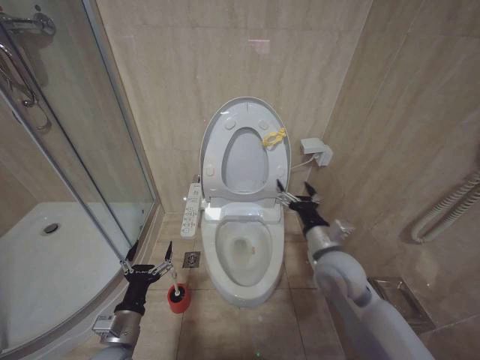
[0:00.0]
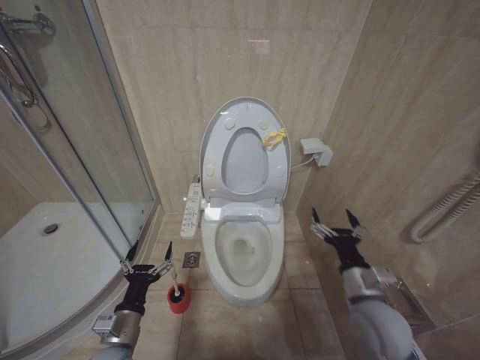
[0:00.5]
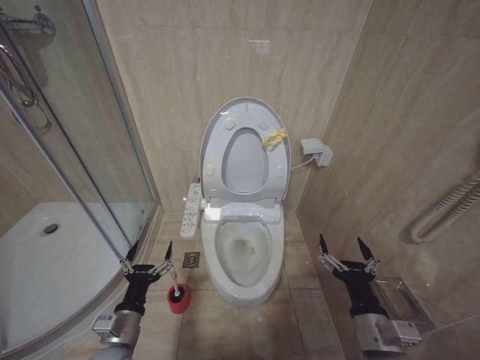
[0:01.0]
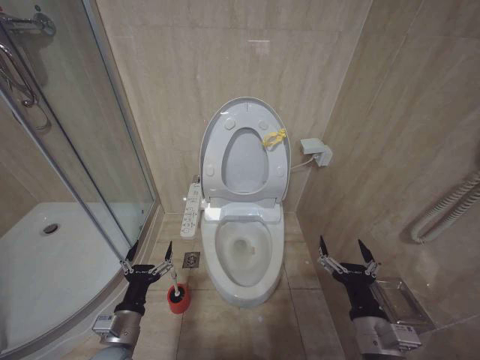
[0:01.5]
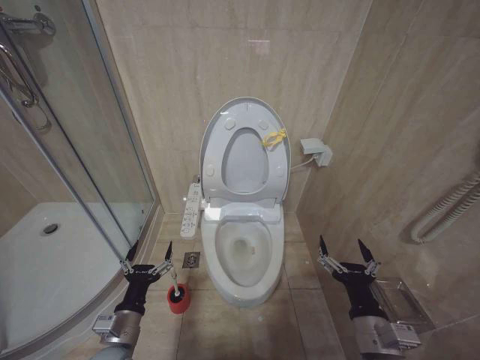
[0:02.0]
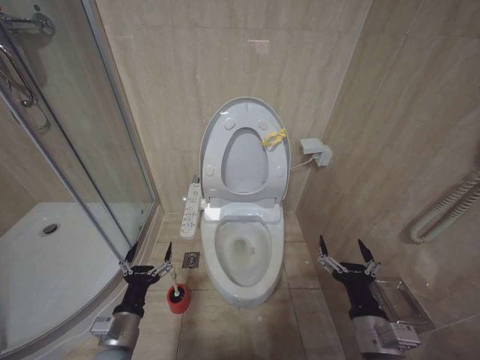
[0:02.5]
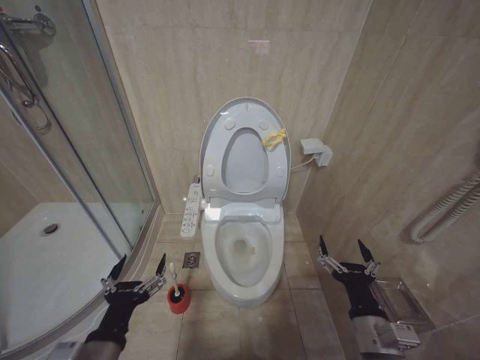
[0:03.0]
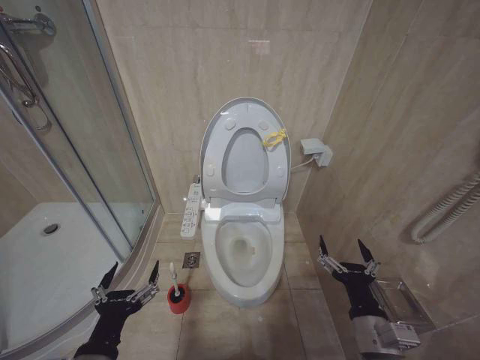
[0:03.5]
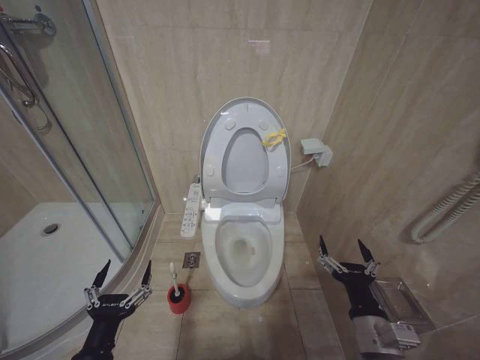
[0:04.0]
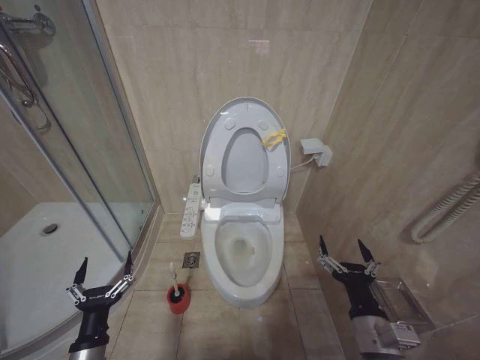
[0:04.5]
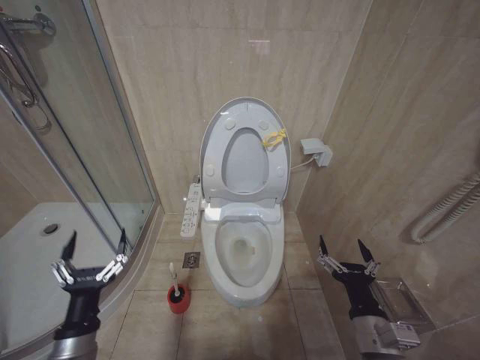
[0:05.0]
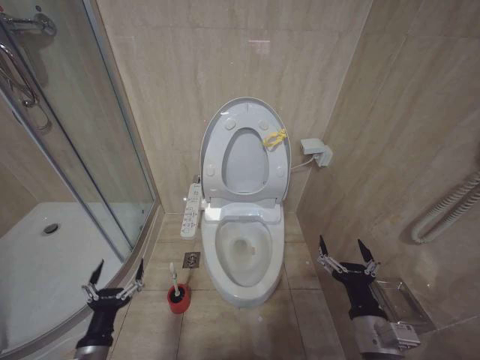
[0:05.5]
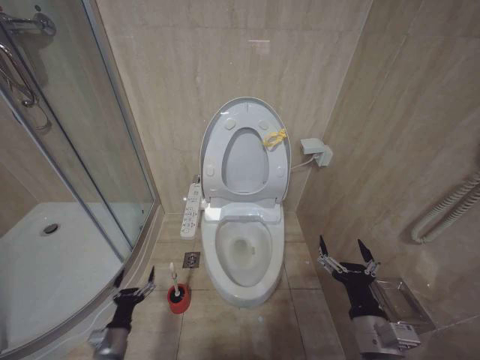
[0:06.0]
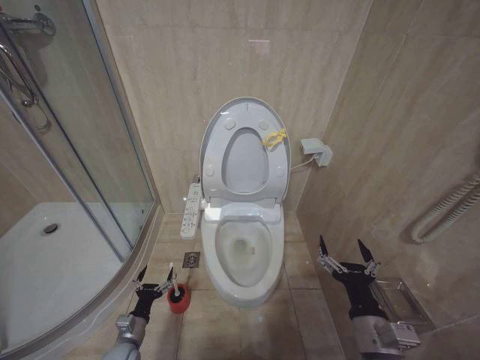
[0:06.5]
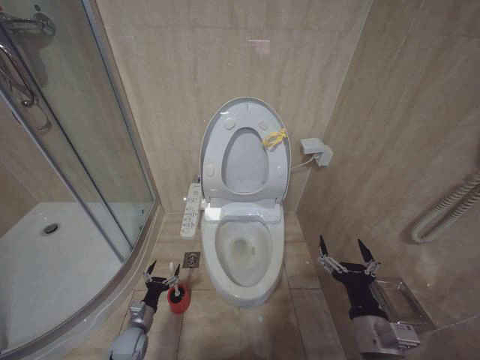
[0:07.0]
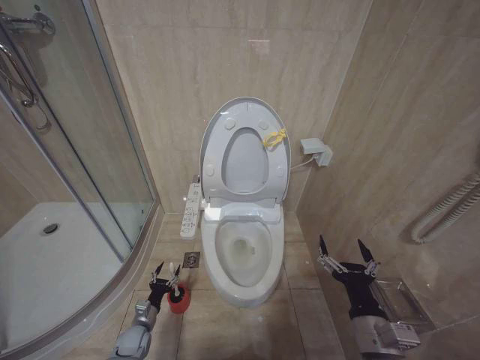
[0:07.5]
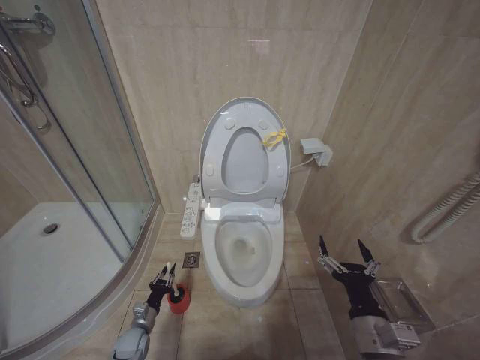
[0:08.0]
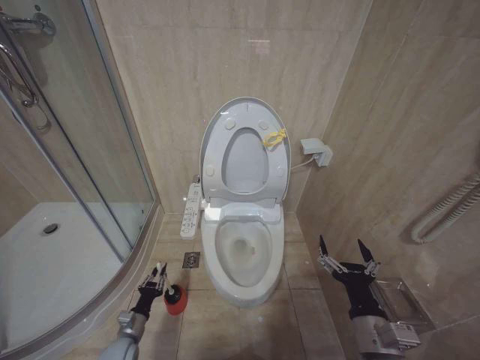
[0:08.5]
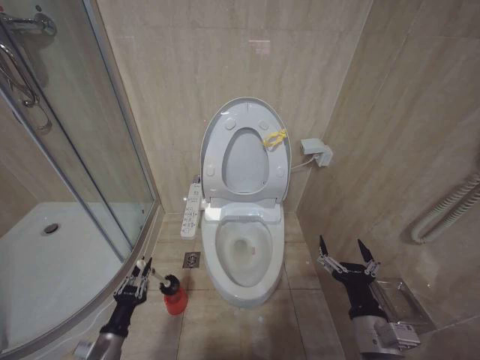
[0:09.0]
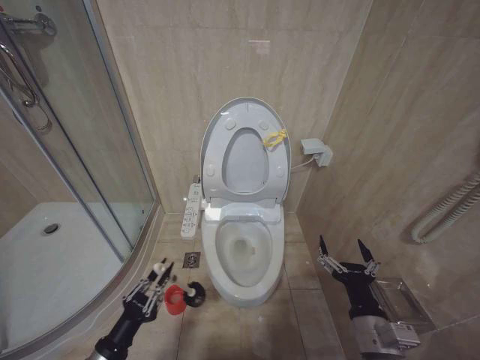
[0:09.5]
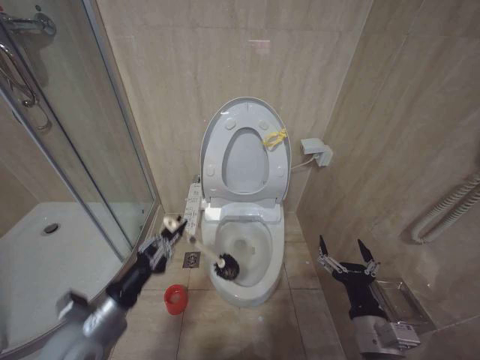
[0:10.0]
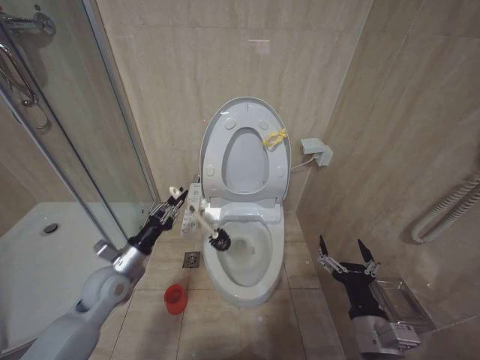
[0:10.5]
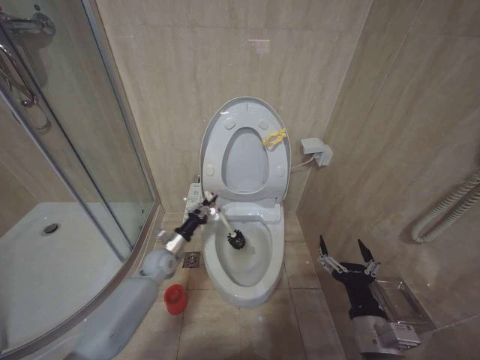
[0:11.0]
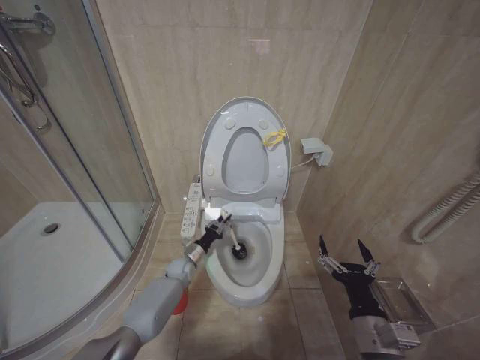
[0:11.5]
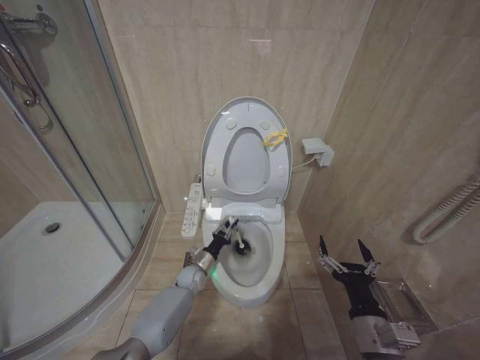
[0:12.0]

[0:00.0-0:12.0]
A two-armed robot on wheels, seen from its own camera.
Task of the whole recording: Open the toilet lid, clean the toilet bowl with a toilet brush, close the toilet lid, and flush.
0:00.0 to 0:02.0: The right gripper travels backward and downward by about 20 cm.
0:02.0 to 0:04.0: The left gripper shifts some 10 cm backward and upward.
0:04.0 to 0:06.0: The left gripper heads downward and forward, covering roughly 20 cm.
0:06.0 to 0:08.0: The left gripper goes approximately 15 cm forward and downward, and closes up.
0:08.0 to 0:10.0: The left gripper goes some 30 cm upward.
0:10.0 to 0:12.0: The left gripper heads forward, downward and to the right, covering roughly 40 cm.

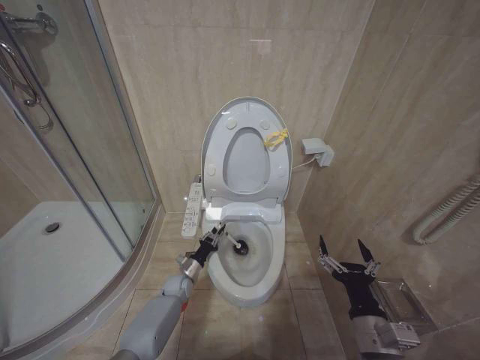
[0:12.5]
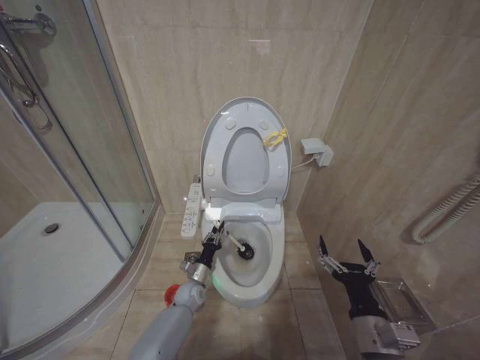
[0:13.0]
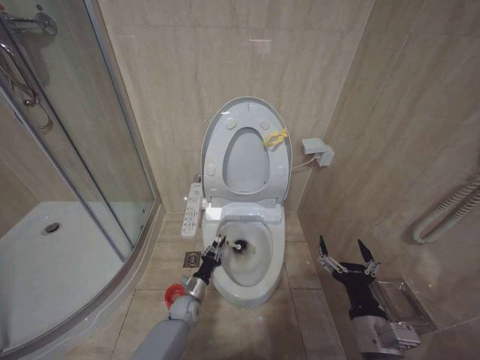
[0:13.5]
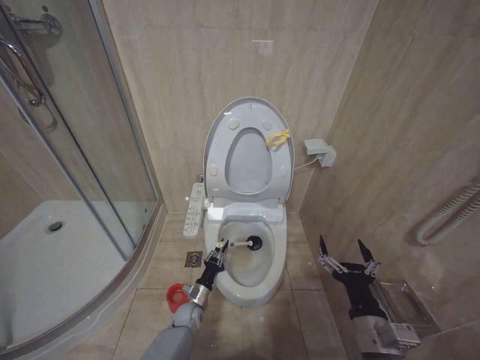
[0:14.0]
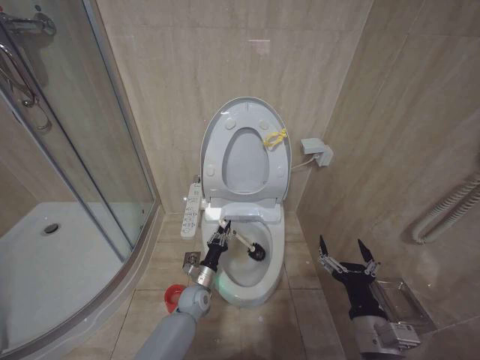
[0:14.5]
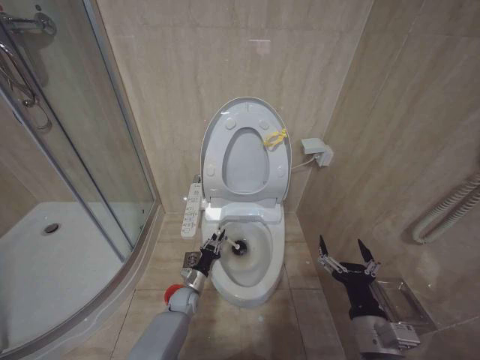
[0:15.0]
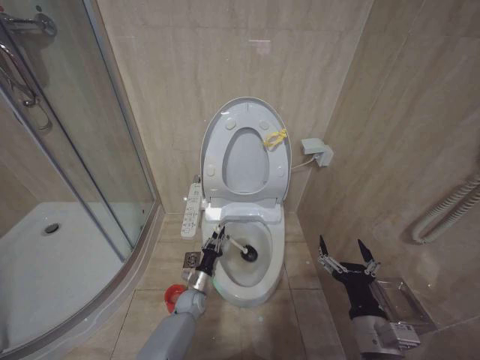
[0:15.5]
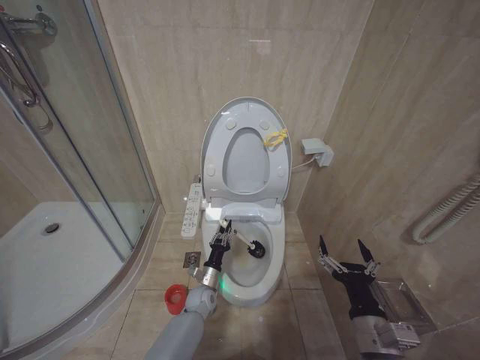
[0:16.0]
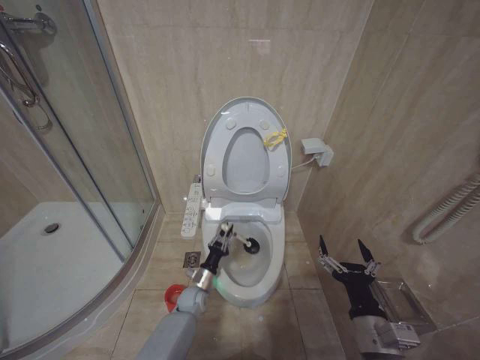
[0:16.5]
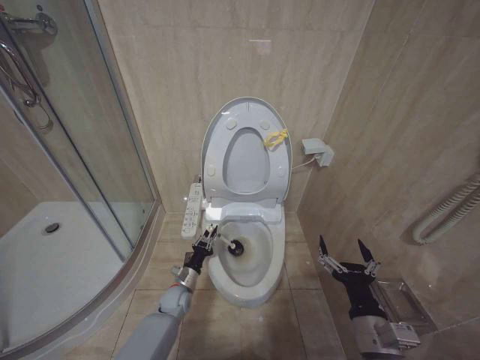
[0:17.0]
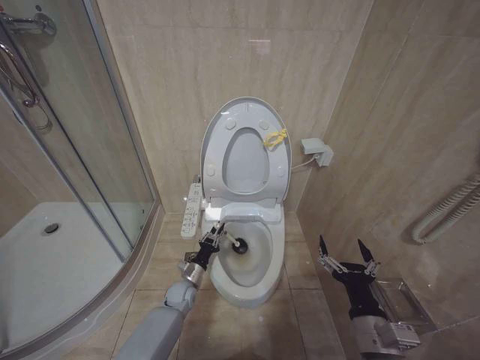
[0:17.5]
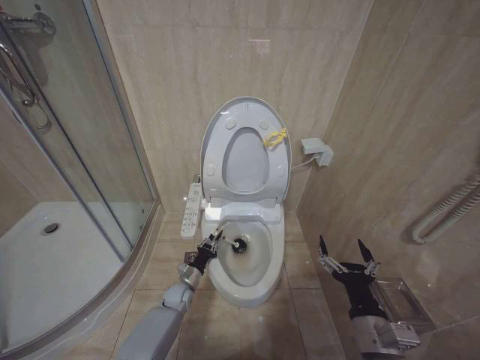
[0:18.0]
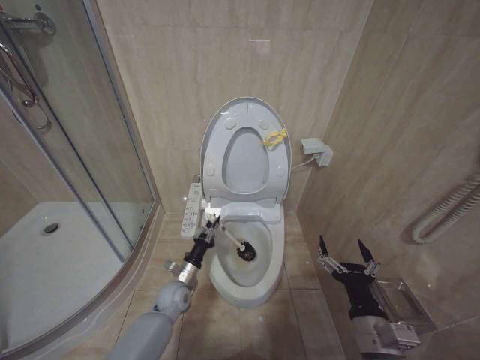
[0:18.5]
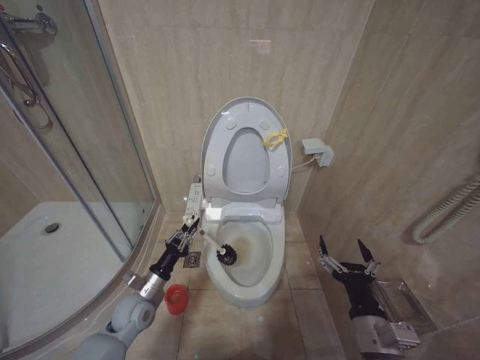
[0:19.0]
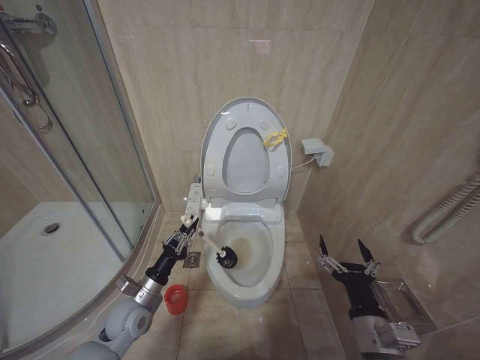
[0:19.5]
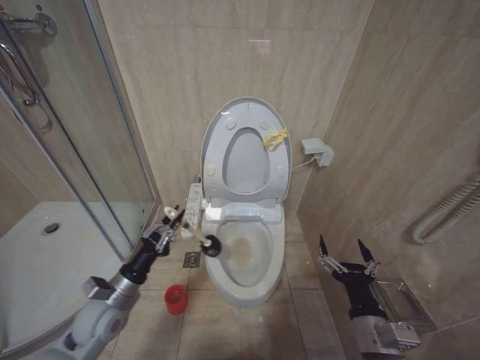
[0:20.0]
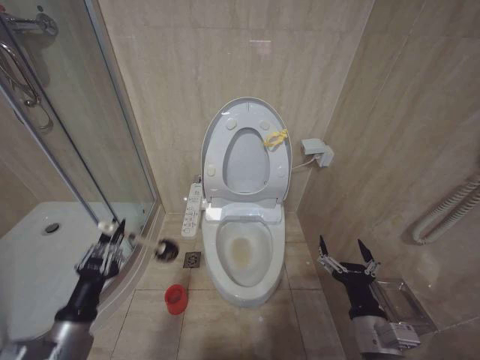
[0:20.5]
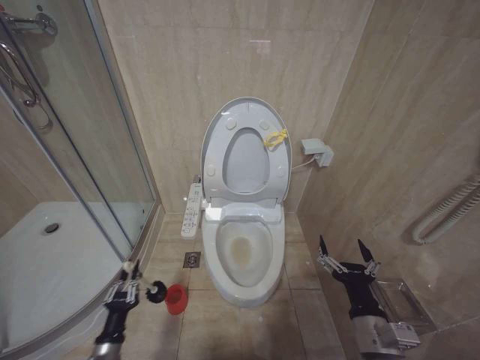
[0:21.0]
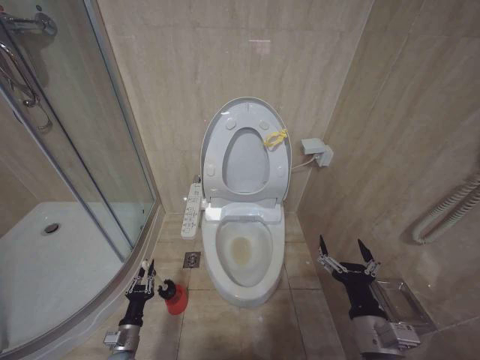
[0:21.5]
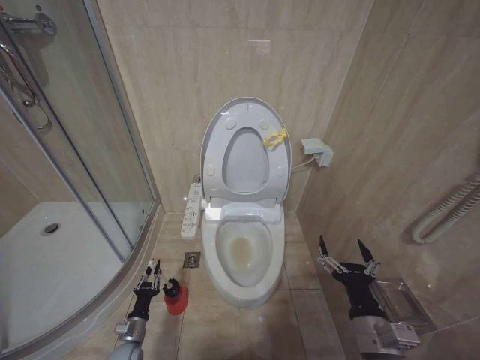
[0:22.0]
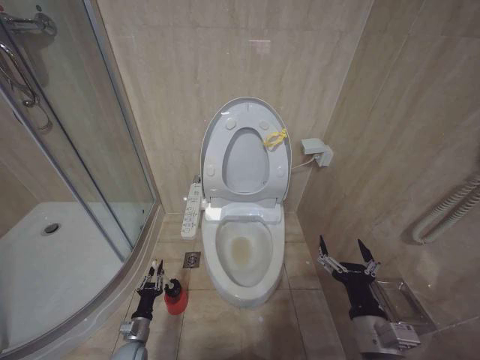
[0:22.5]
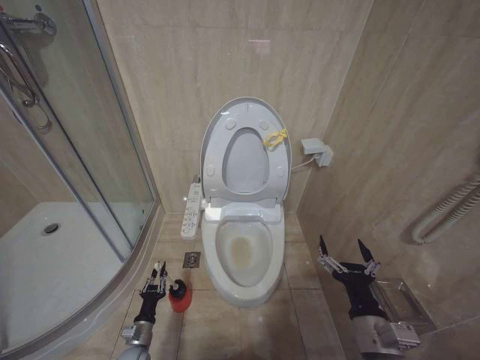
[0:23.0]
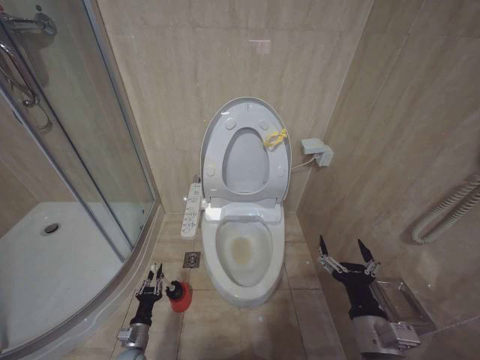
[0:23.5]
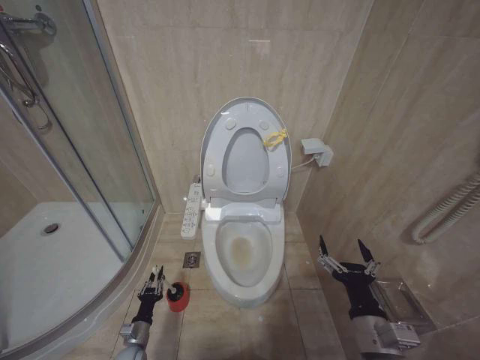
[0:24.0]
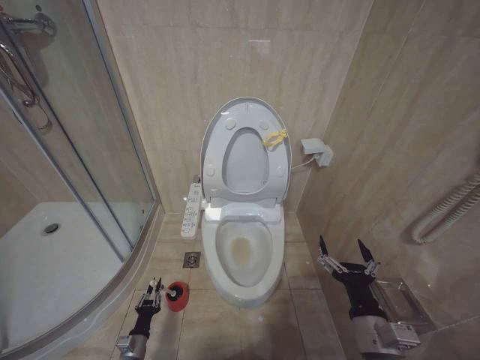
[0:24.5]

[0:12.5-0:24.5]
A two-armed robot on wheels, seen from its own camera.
Task of the whole recording: Open the toilet lid, clean the toilet bowl with a toilet brush, close the toilet lid, and flush.
0:12.5 to 0:14.5: The left gripper shifts roughly 10 cm backward and to the right.
0:16.5 to 0:18.5: The left gripper goes some 5 cm upward.
0:18.5 to 0:20.5: The left gripper goes some 35 cm upward, backward and to the left.
0:20.5 to 0:22.5: The left gripper shifts about 30 cm downward.
0:22.5 to 0:24.5: The grippers stay close to where they were, moving slightly.

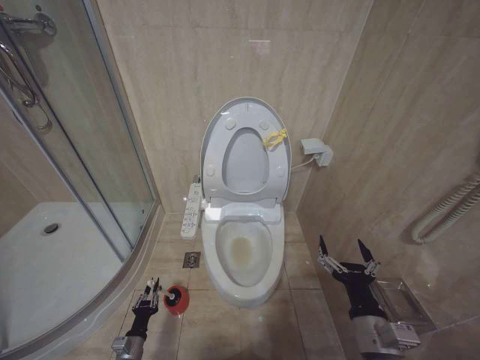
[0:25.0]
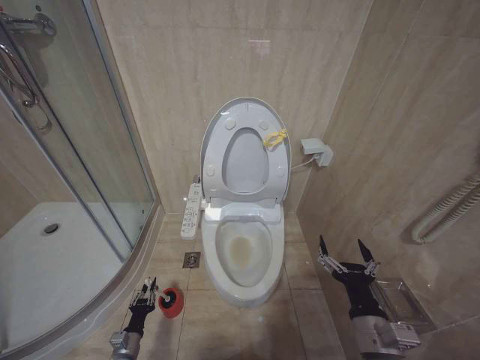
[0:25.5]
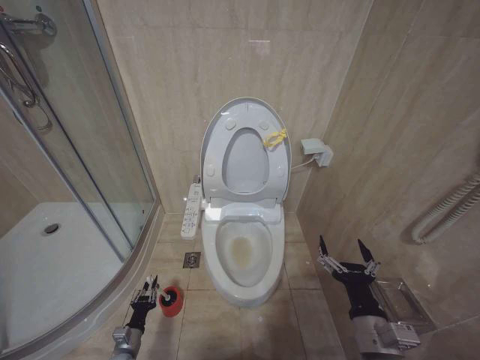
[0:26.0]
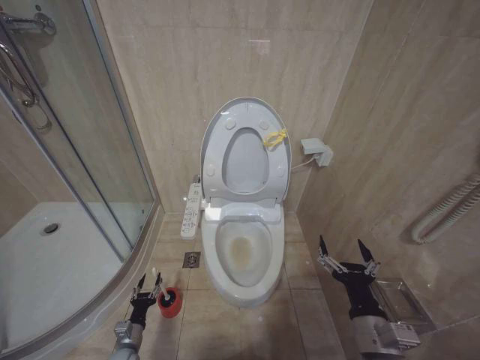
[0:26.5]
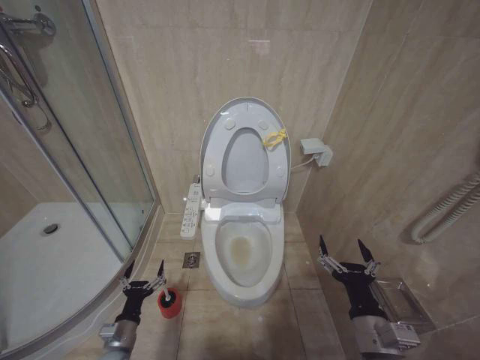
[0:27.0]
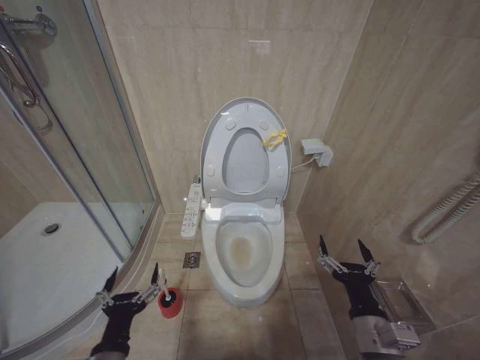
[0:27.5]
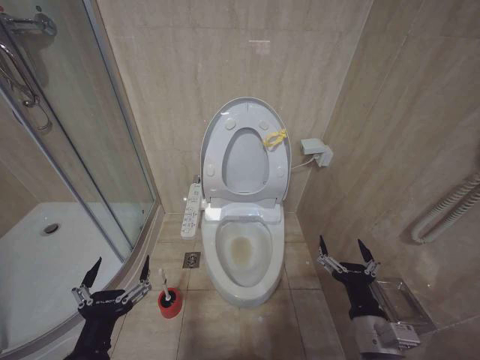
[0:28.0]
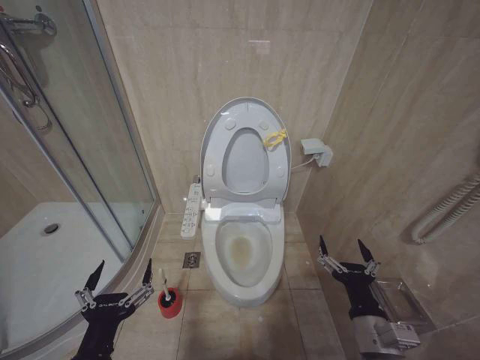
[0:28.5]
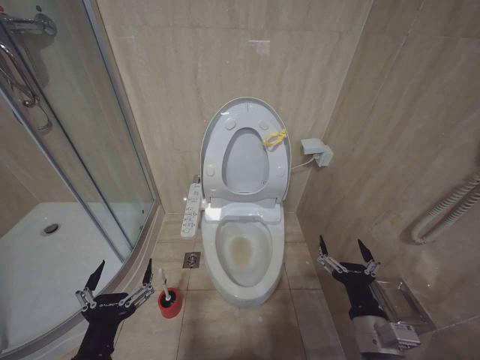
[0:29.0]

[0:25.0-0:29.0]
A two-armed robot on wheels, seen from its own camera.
Task of the whole recording: Open the toilet lid, clean the toilet bowl with a toilet brush, close the toilet lid, and flush.
0:25.0 to 0:27.0: The left gripper shifts roughly 10 cm upward, and opens up.
0:27.0 to 0:29.0: The left gripper heads upward and backward, covering about 30 cm.
